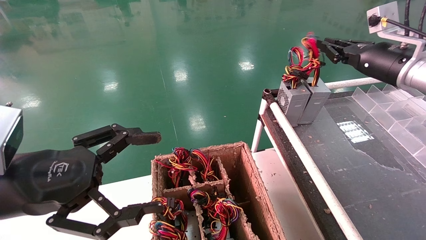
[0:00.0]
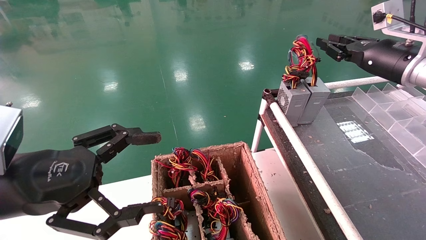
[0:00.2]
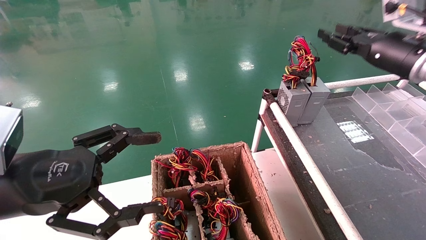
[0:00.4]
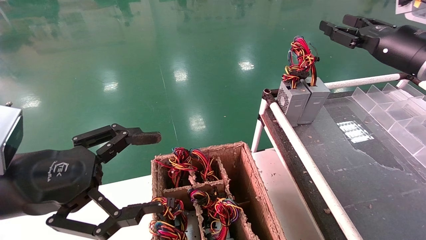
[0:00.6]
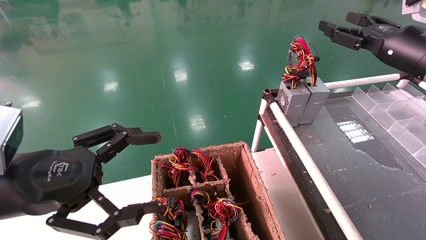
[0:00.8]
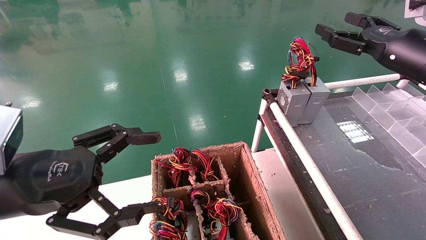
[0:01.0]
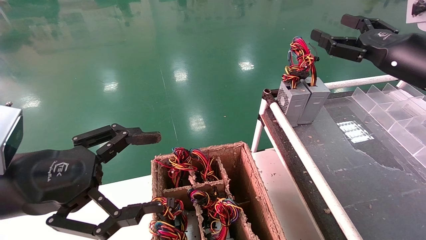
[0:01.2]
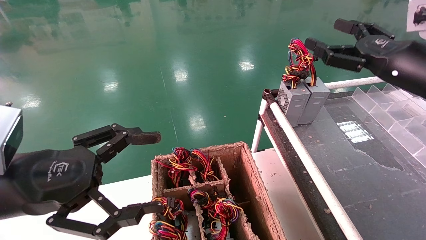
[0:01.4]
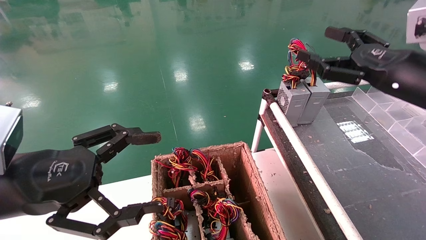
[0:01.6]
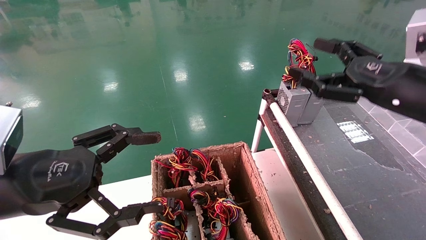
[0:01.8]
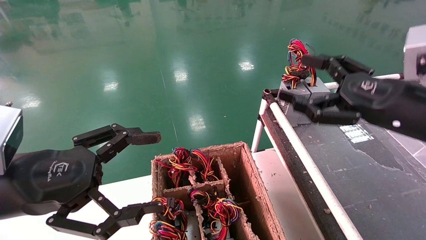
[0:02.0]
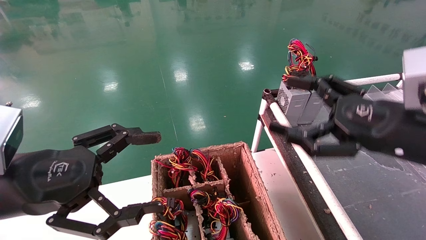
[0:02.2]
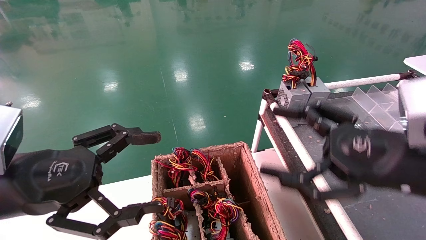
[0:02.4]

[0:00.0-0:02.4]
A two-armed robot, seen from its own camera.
0:00.0 to 0:01.2: The right gripper travels backward by approximately 5 cm, and opens.
0:01.2 to 0:02.4: The right gripper shifts about 20 cm backward, downward and to the left.
